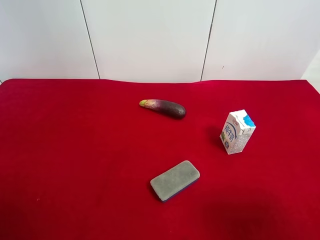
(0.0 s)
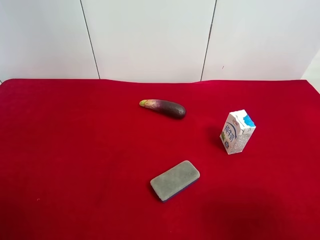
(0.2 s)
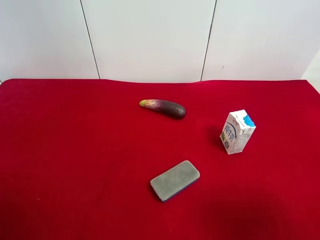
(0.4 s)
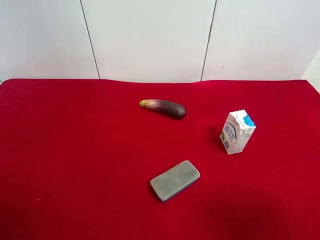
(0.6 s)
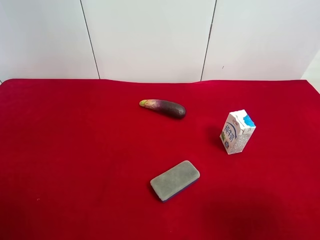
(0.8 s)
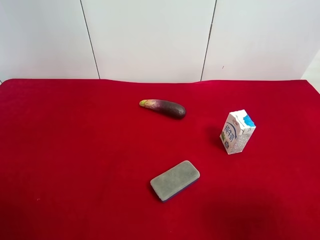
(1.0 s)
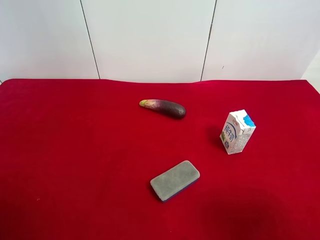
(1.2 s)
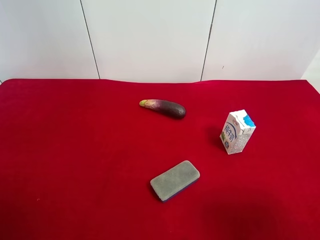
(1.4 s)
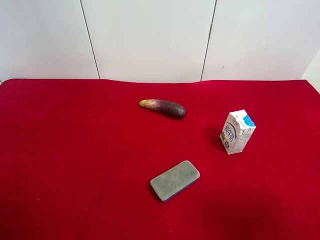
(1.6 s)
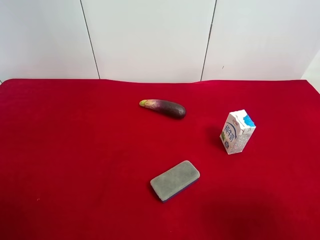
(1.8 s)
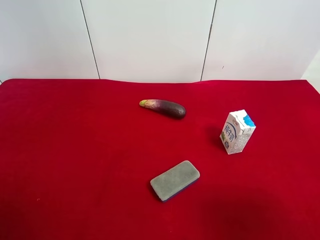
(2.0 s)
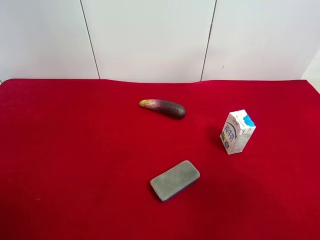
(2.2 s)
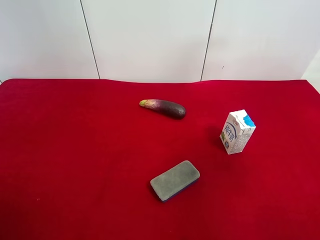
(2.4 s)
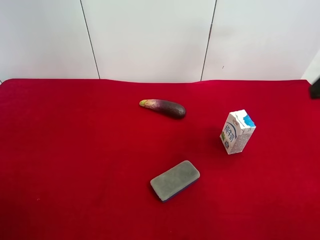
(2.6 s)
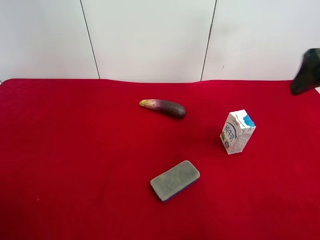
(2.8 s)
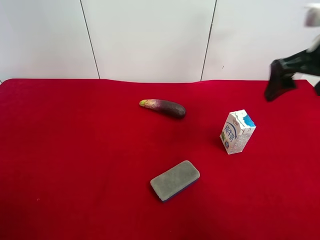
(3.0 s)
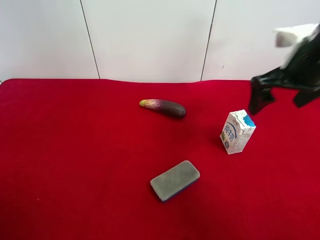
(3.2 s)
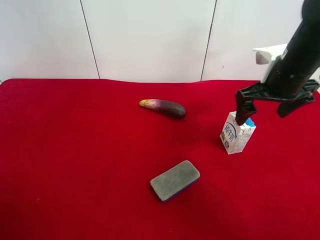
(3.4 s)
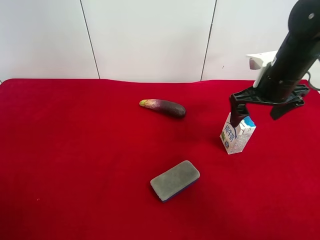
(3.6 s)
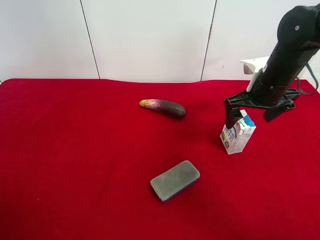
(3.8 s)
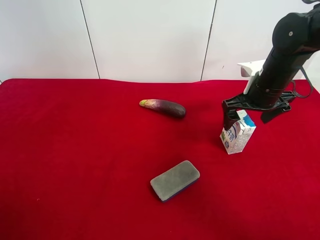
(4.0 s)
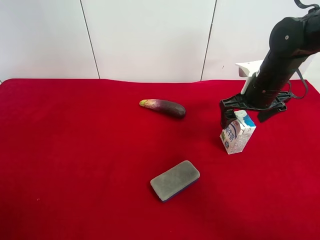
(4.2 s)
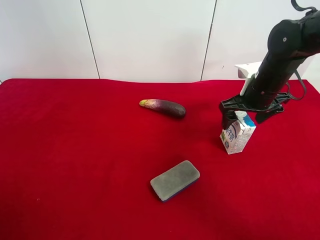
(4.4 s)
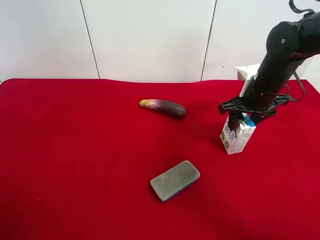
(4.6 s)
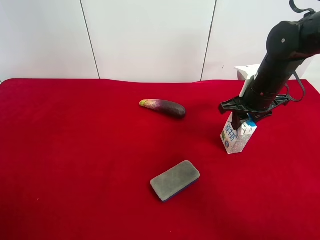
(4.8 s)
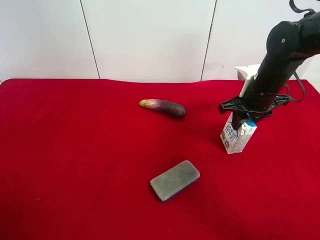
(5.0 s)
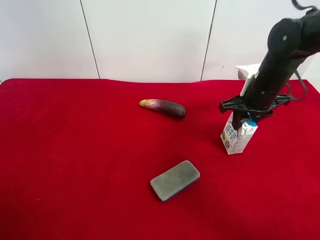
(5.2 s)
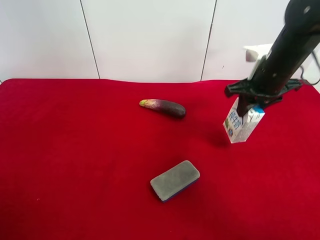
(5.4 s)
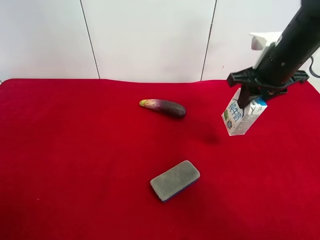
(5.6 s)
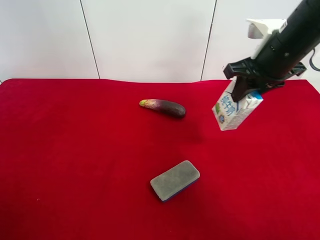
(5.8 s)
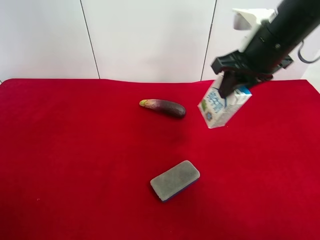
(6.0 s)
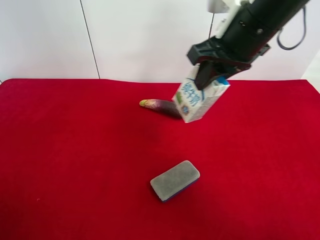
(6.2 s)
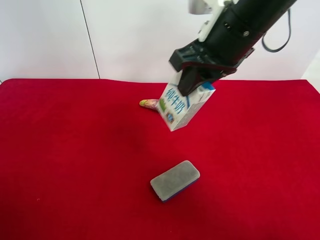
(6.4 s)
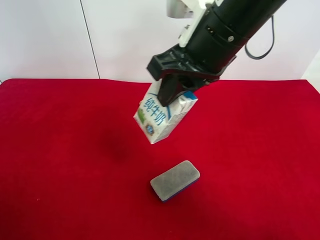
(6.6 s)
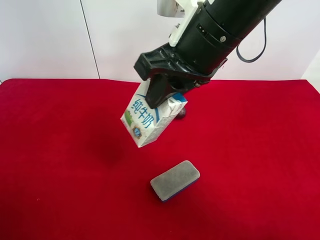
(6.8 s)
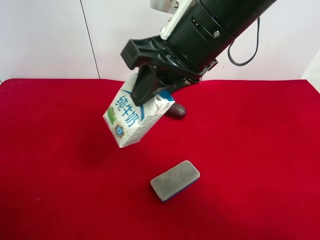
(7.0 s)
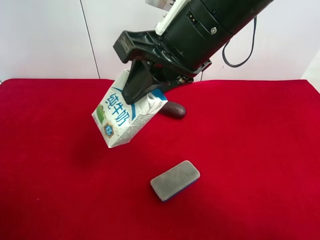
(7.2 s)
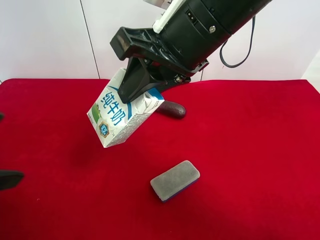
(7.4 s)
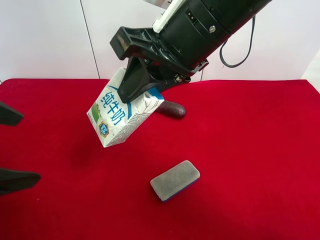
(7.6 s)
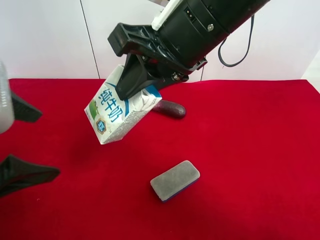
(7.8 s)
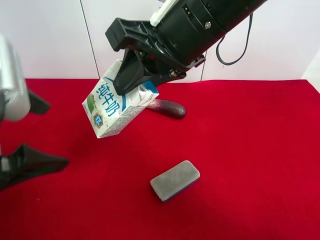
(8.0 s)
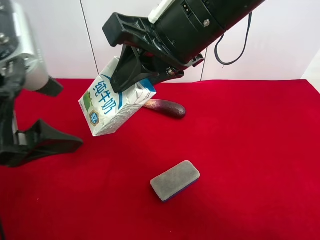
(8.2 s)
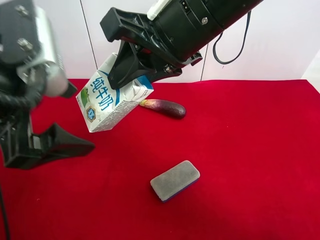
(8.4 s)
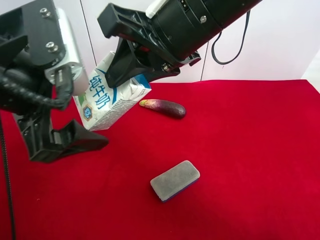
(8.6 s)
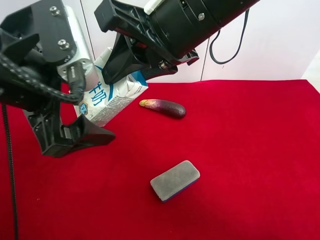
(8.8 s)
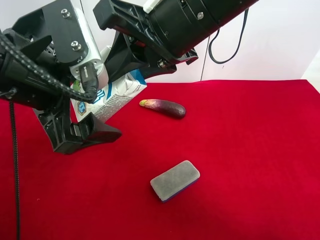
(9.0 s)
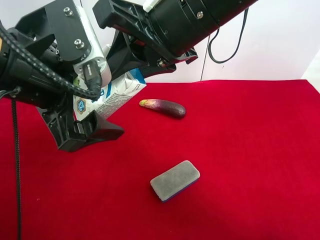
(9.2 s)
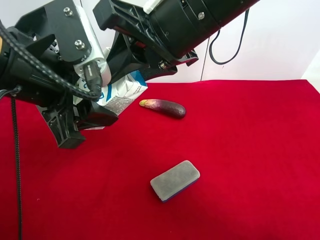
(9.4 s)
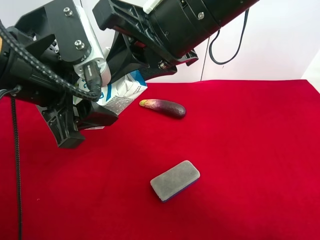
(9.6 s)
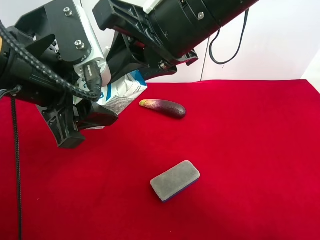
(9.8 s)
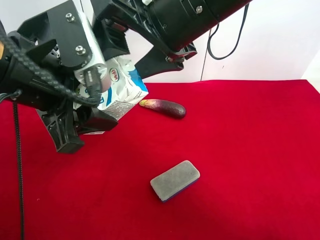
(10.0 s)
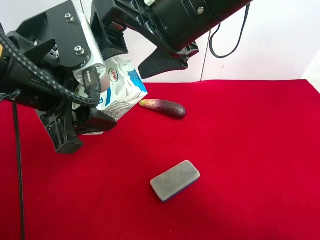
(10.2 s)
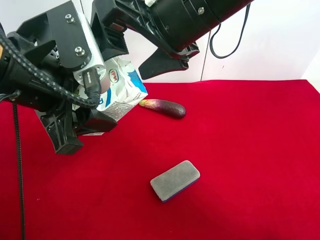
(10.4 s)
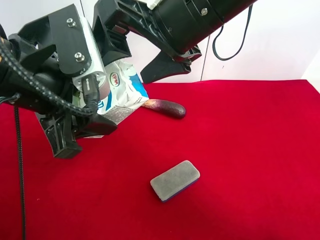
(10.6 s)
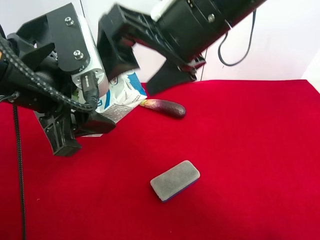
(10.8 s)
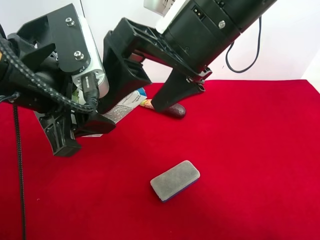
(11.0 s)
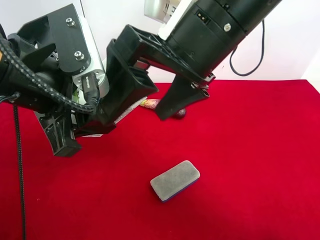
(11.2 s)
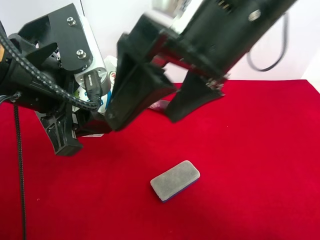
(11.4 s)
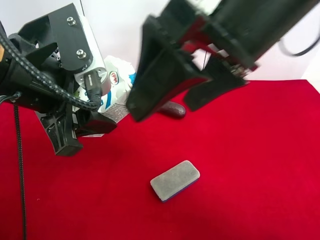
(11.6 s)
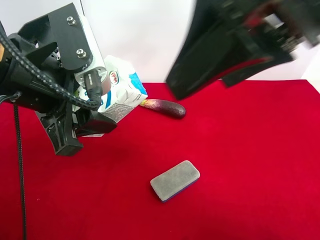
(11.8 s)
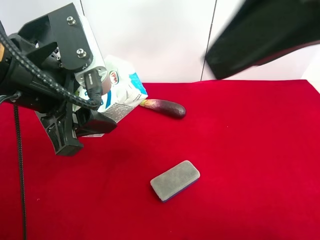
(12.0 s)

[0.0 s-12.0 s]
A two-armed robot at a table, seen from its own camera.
Task of the whole recording: use the right gripper to pick up the item and transfer it from the right gripper to the left gripper.
Step, 0.0 to 4.8 s: Use the right gripper to grab the milk on the right side of the table.
Step, 5.0 to 10.0 s: Pass the milk to the left gripper.
0.0 to 1.6 s: Both grippers stay about where they are.
1.6 to 3.0 s: The right gripper moves forward, approximately 25 cm.
3.0 to 4.4 s: The right gripper heads downward and forward, covering roughly 15 cm.
4.4 to 6.0 s: The right gripper travels upward and to the left by roughly 15 cm, and closes its fingers.
6.0 to 7.6 s: The right gripper is displaced to the left and backward by roughly 15 cm, while the left gripper heads forward and to the right, covering about 15 cm.
7.6 to 9.0 s: The left gripper moves to the right and forward, some 10 cm.
9.0 to 10.4 s: The left gripper closes its fingers. Meanwhile the right gripper opens up.
10.4 to 12.0 s: The right gripper moves to the right, backward and upward, some 15 cm.

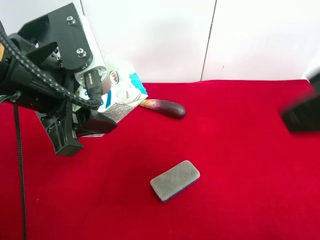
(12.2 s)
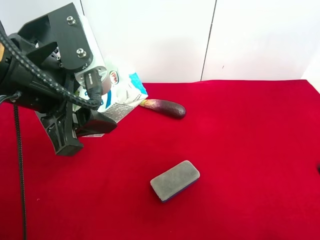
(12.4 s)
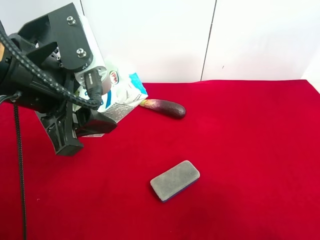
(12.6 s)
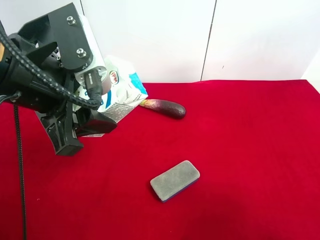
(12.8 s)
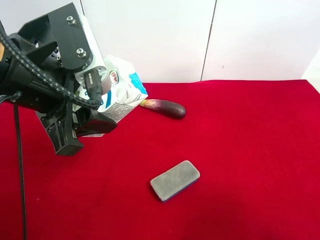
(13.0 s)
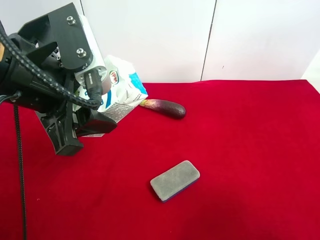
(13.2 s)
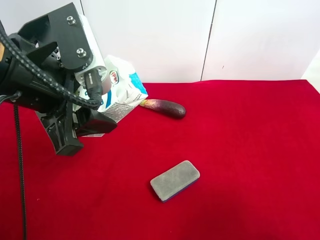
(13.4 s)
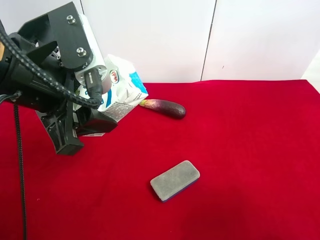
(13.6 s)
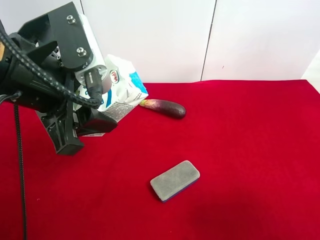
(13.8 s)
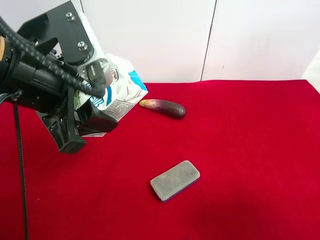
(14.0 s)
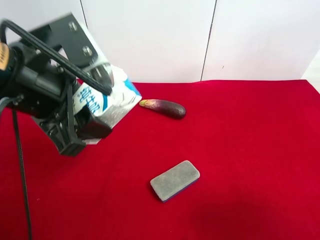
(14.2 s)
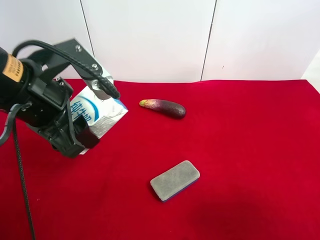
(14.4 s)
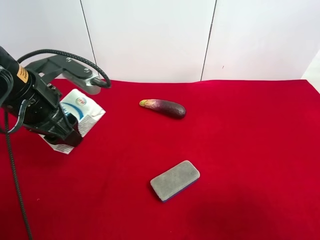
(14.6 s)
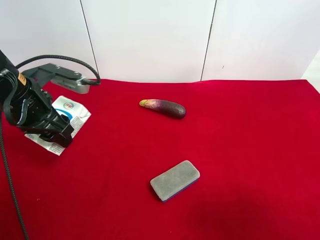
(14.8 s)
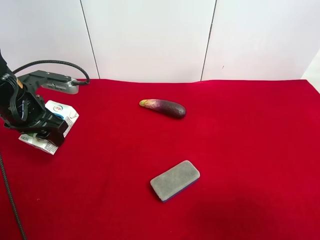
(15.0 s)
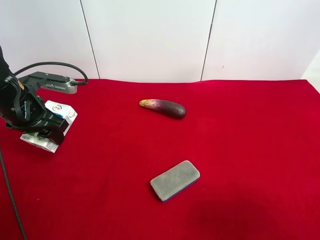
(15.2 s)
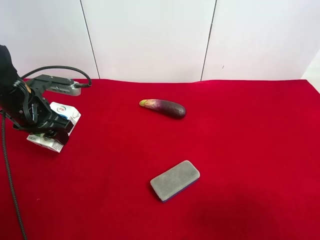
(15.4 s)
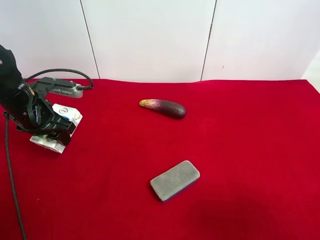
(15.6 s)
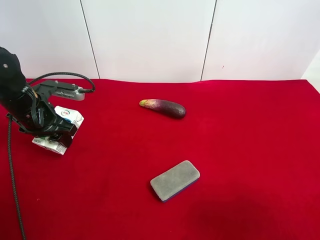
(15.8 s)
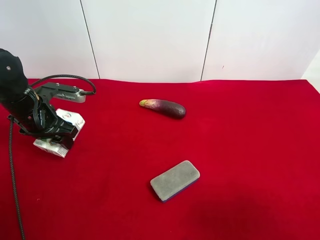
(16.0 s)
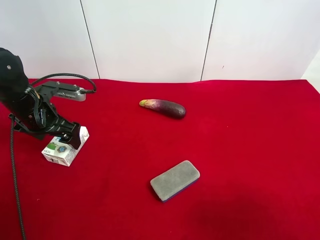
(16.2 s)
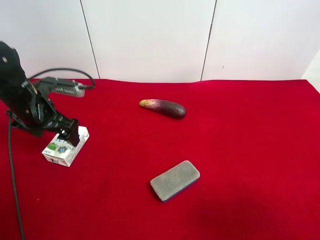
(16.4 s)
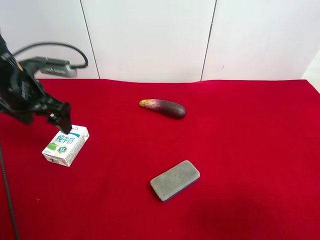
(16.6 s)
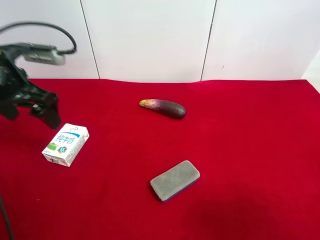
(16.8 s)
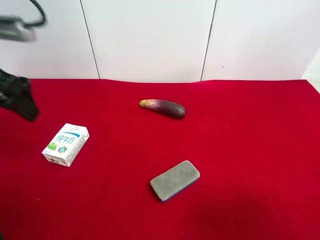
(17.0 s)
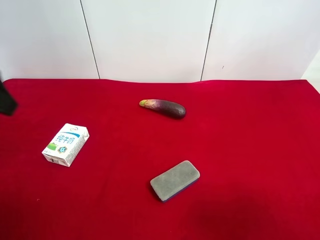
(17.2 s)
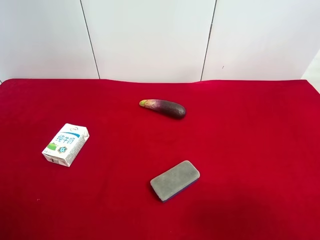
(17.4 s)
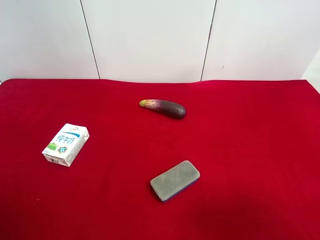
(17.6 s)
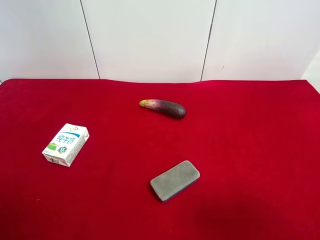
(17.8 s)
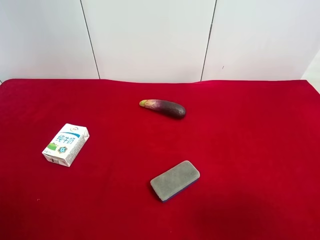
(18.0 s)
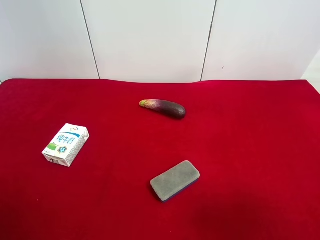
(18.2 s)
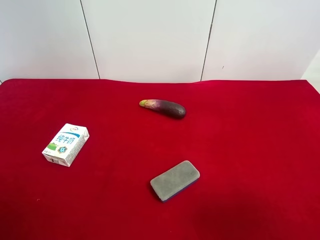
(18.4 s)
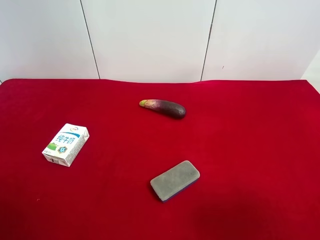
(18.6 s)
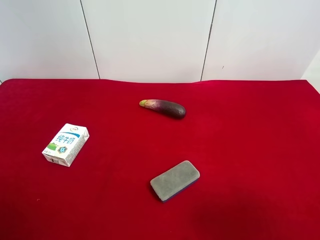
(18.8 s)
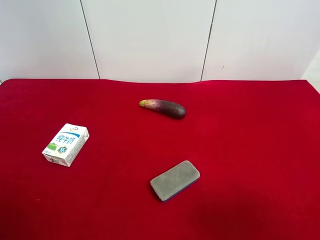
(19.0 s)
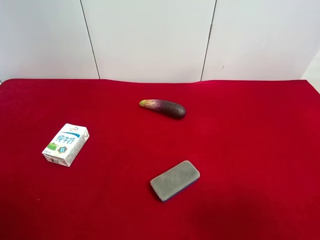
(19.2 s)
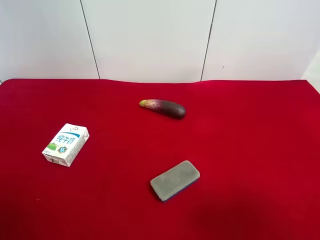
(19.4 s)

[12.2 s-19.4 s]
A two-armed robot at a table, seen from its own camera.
Task of the whole recording: use the right gripper to pick up the item and transfer it from the right gripper to the left gripper.
Step, 12.2 to 16.0 s: The left gripper places milk on the left side of the table.
12.2 to 13.6 s: The right gripper heads downward, to the right and backward, covering some 15 cm.
13.6 to 15.0 s: The left gripper travels downward, to the left and forward by some 20 cm.
15.0 to 16.6 s: The left gripper opens its fingers.
16.6 to 18.0 s: The left gripper is displaced backward by approximately 30 cm.

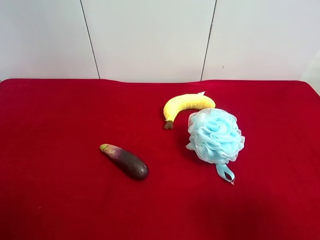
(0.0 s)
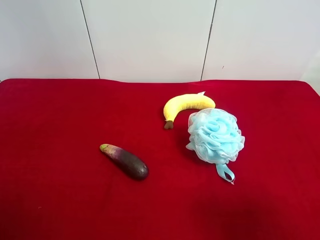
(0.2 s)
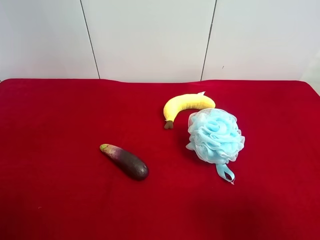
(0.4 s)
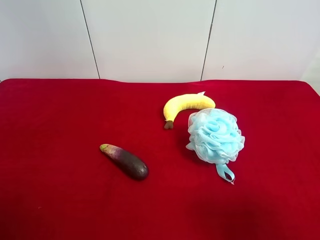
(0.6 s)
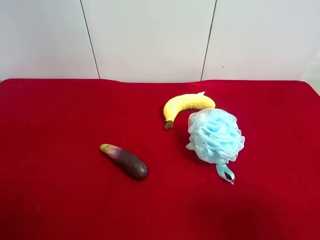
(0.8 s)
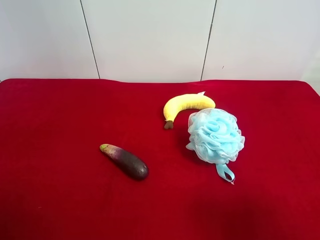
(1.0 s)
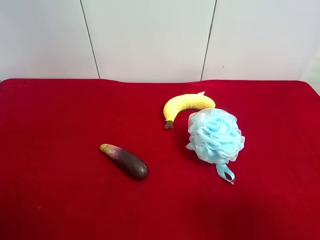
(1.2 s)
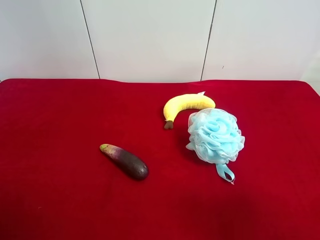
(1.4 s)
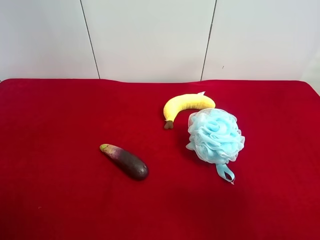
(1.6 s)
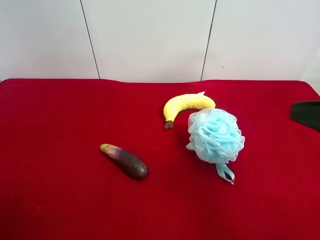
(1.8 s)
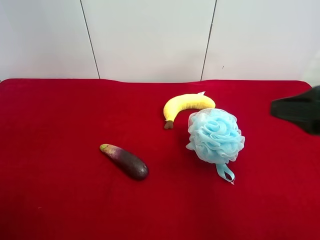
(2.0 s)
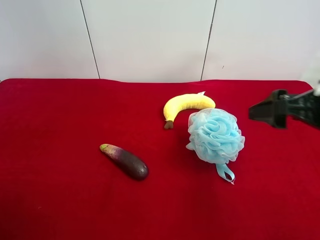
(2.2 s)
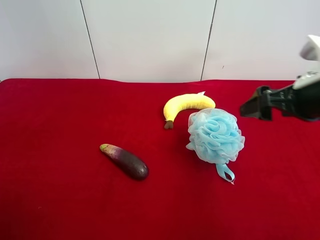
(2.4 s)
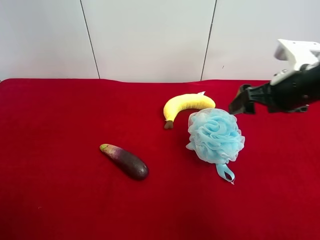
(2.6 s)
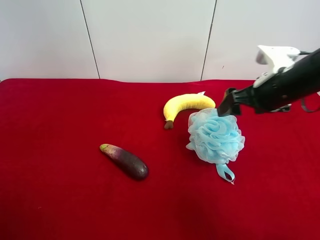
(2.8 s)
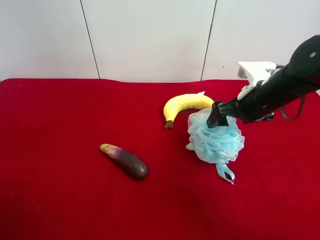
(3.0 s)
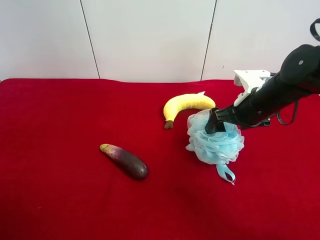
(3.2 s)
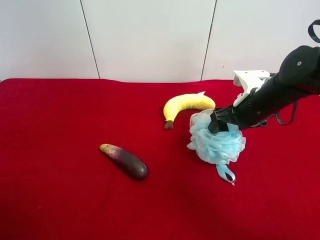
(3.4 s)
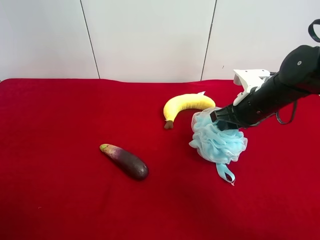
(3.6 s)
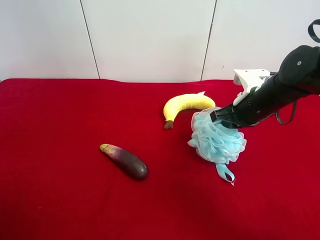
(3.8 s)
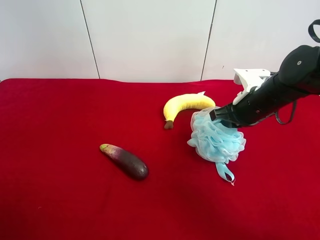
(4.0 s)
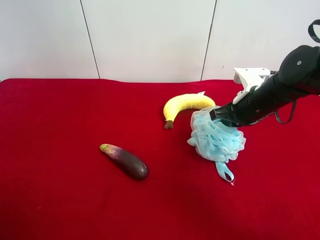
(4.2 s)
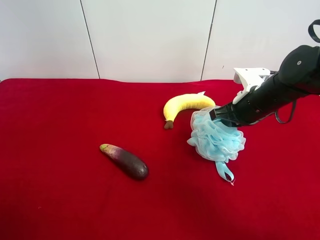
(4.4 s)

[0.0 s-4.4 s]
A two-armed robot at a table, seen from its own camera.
Task of the whole recording: use the right gripper to pick up the item and transfer it from the right gripper to the left gripper.
Step, 0.0 to 3.6 s: Use the right gripper to grab the shower sphere on the right side of the table.
1.4 to 3.0 s: The right gripper heads forward and downward, covering approximately 30 cm.
3.0 to 4.4 s: The right gripper closes.
